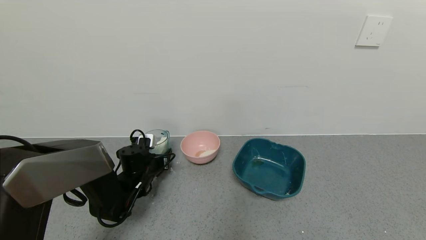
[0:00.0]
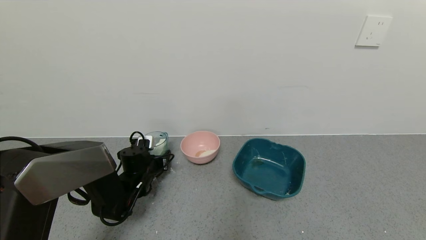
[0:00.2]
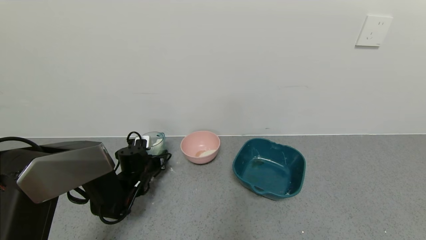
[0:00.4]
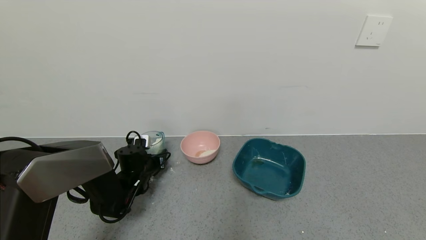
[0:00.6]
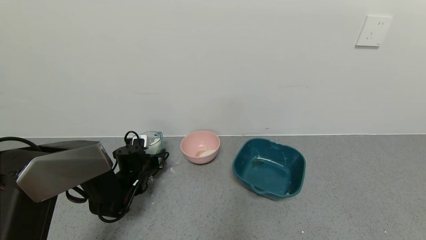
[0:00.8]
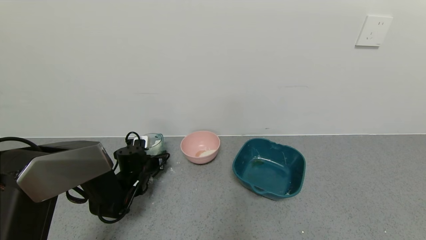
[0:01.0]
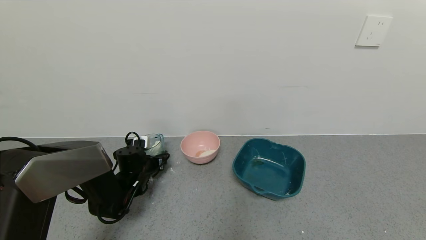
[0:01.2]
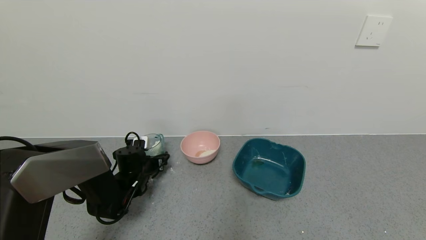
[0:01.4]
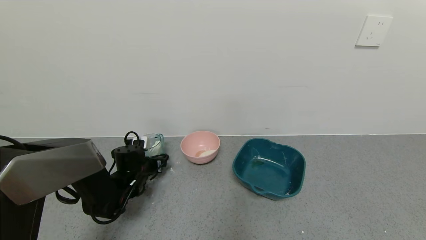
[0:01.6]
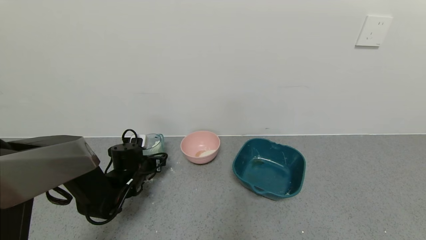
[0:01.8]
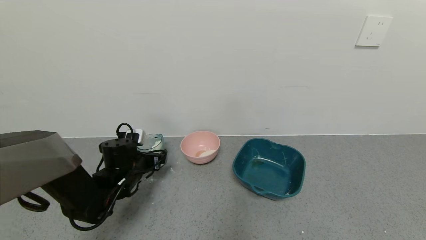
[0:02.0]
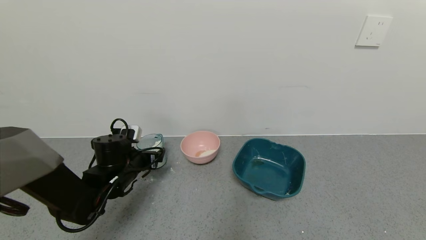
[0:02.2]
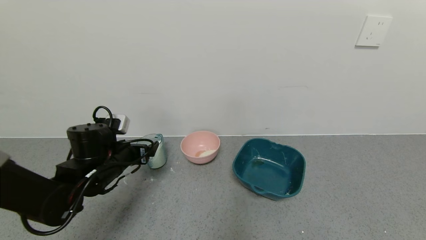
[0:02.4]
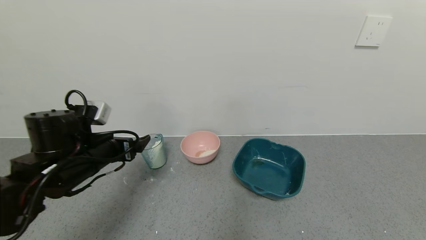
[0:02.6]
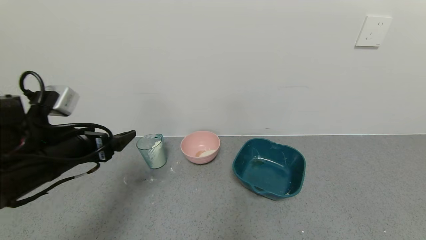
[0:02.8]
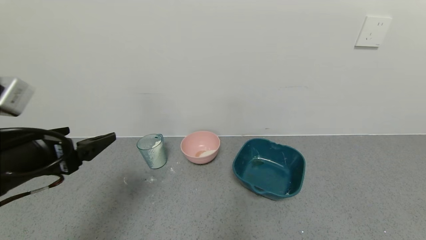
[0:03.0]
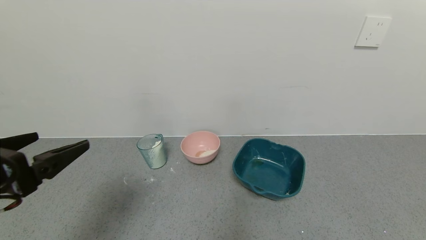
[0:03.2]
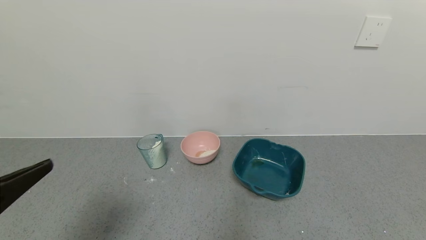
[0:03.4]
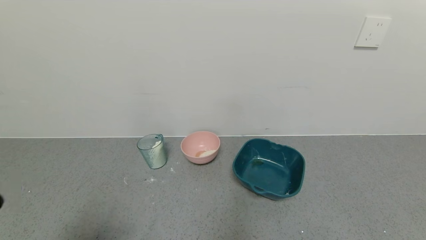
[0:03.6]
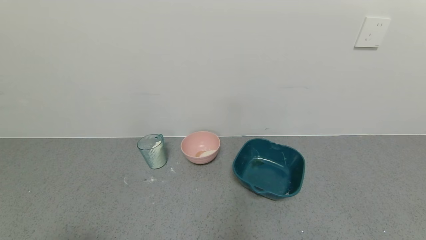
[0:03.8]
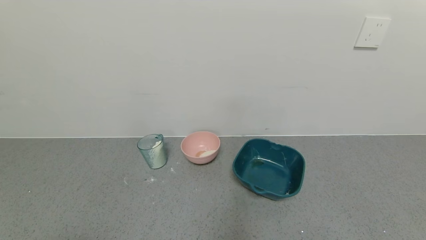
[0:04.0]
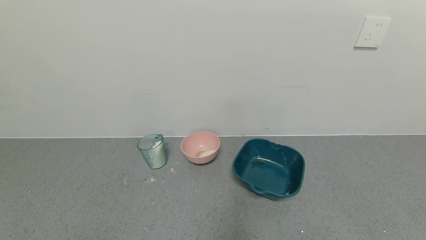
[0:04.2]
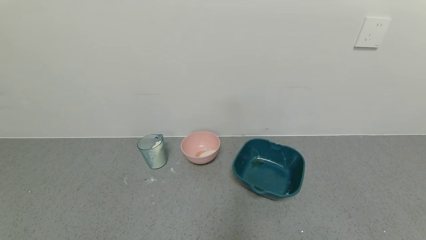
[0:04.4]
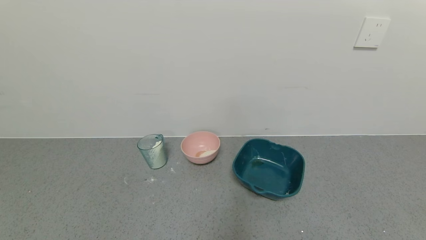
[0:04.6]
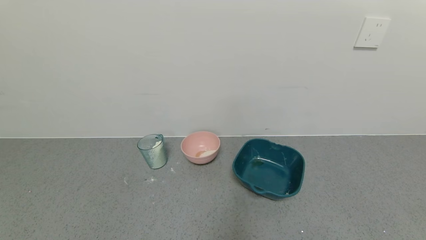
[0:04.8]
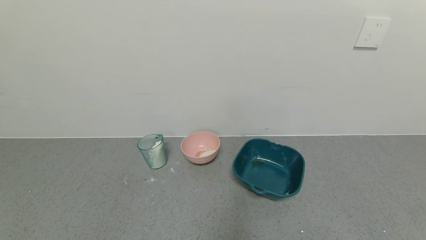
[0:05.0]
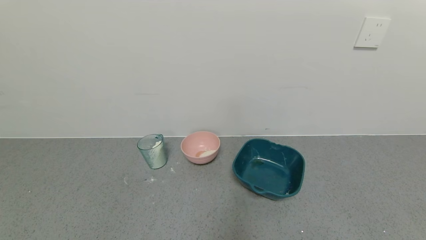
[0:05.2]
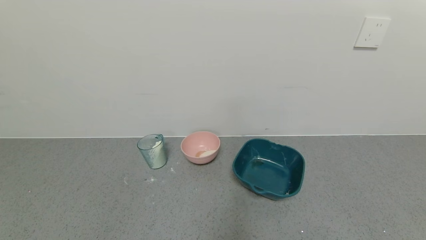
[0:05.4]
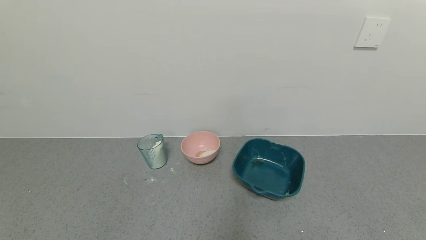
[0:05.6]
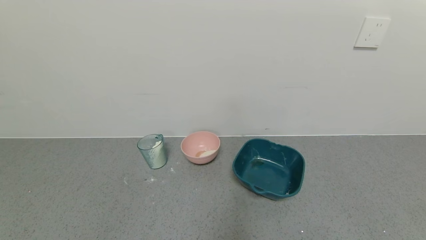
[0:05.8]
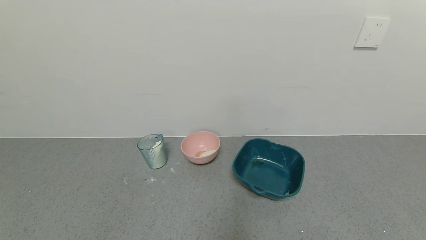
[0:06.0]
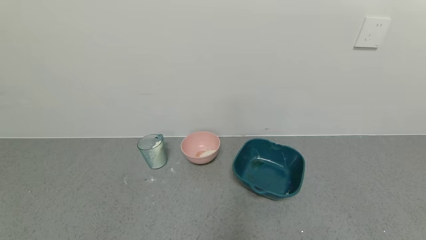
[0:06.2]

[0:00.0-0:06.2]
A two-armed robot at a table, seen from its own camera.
Task of the whole recording: use a gripper to pick up the cup and pour the powder into a bowl or tray.
Step, 0:00.0 to 0:02.2: Place the glass cup down with the left gripper.
0:00.0 to 0:01.6: The left gripper opens.
0:01.6 to 0:03.2: The left gripper goes about 35 cm backward and upward.
0:03.2 to 0:04.6: The left gripper heads backward, covering about 20 cm.

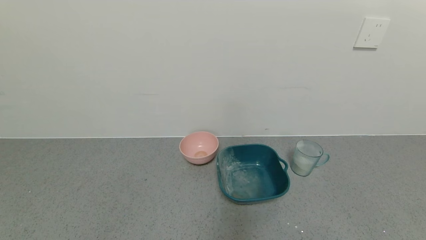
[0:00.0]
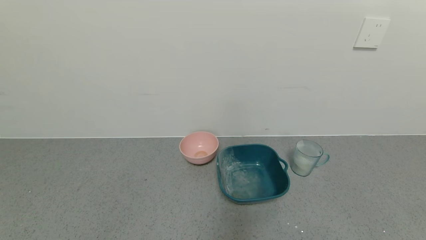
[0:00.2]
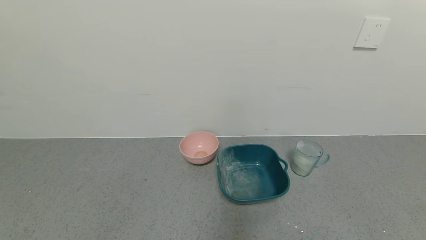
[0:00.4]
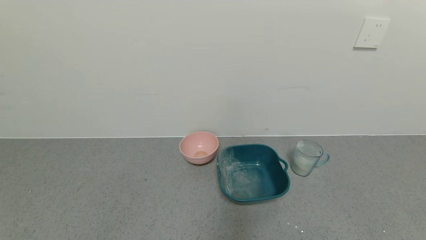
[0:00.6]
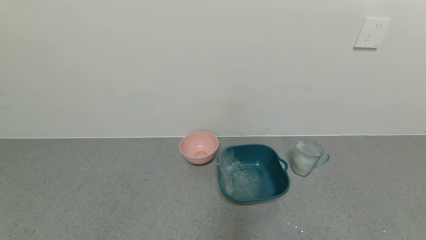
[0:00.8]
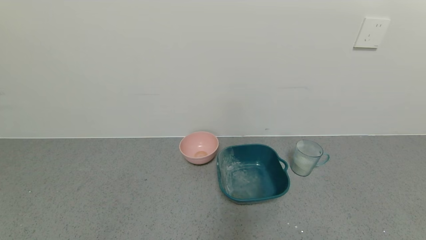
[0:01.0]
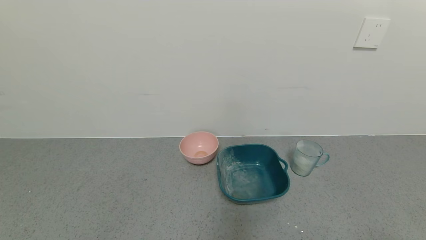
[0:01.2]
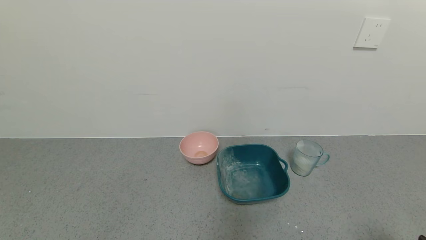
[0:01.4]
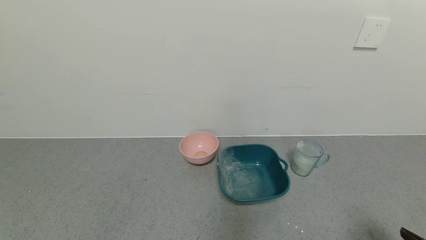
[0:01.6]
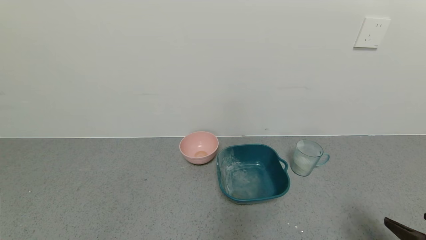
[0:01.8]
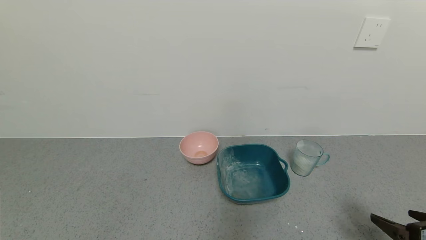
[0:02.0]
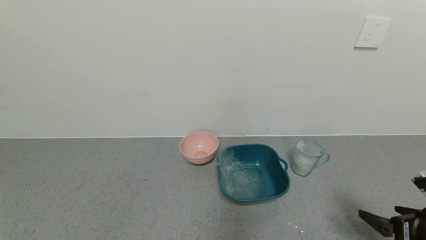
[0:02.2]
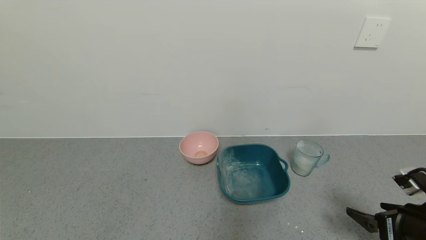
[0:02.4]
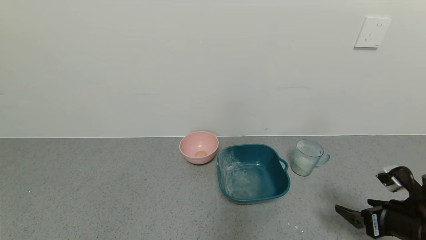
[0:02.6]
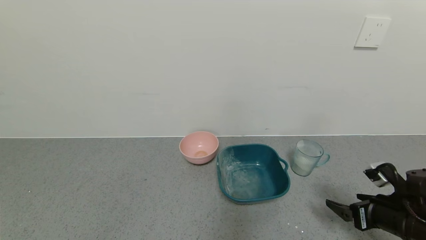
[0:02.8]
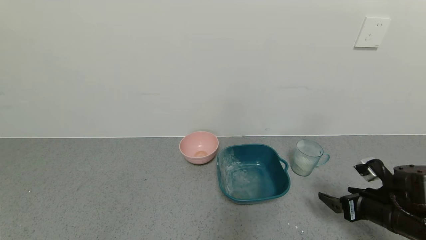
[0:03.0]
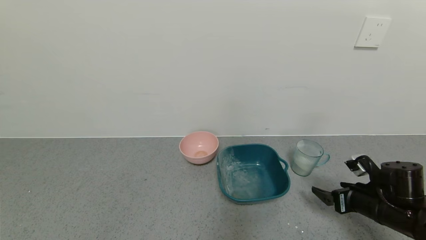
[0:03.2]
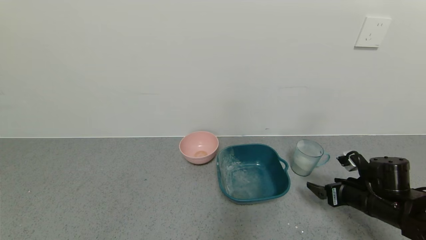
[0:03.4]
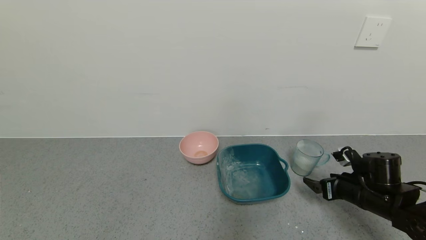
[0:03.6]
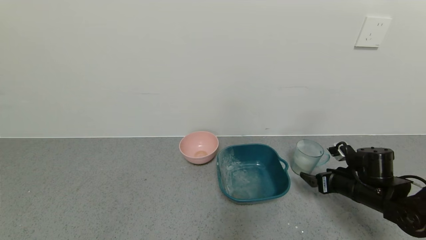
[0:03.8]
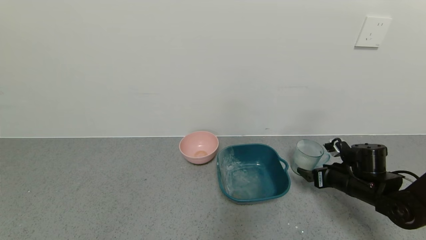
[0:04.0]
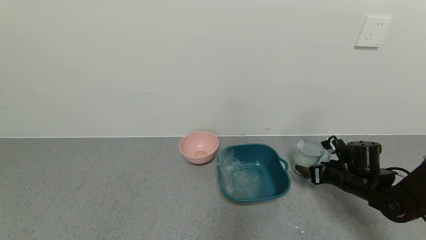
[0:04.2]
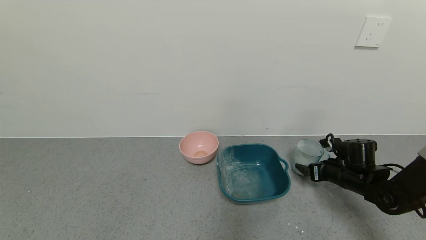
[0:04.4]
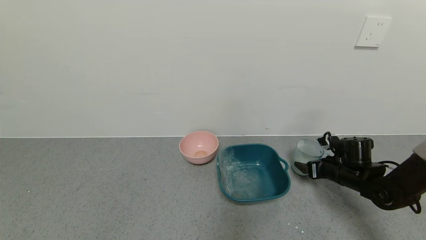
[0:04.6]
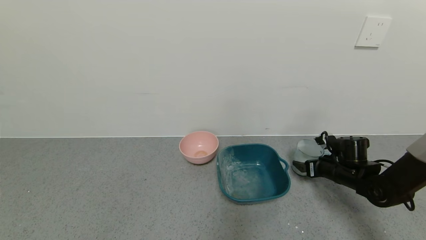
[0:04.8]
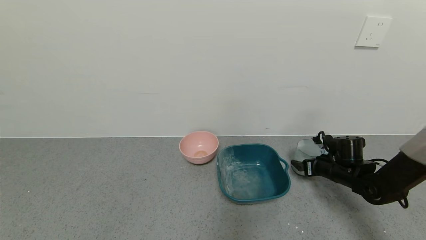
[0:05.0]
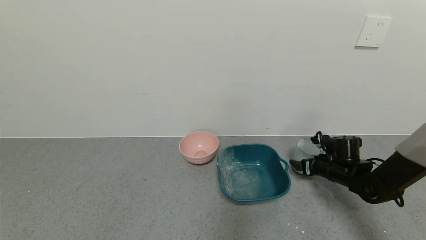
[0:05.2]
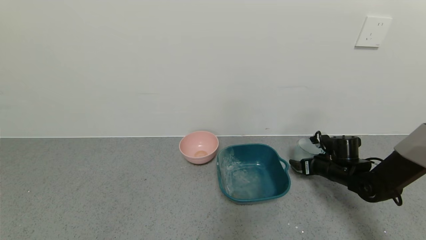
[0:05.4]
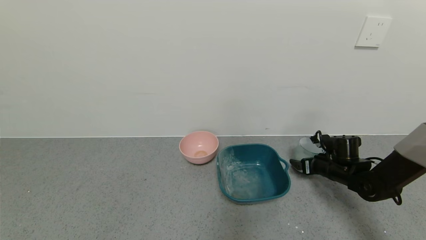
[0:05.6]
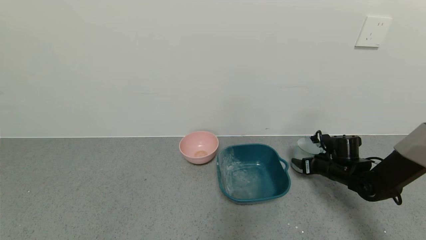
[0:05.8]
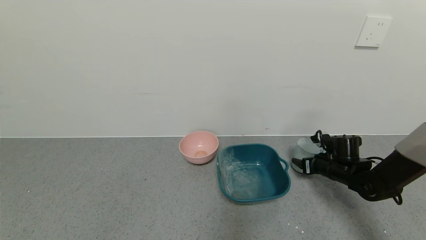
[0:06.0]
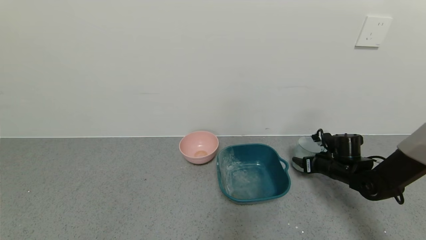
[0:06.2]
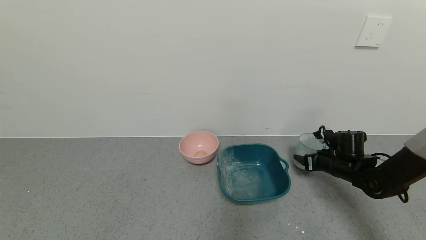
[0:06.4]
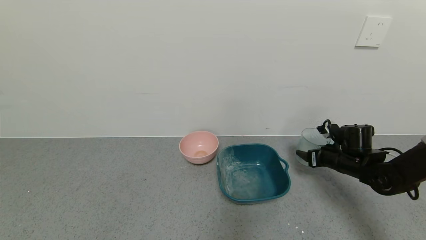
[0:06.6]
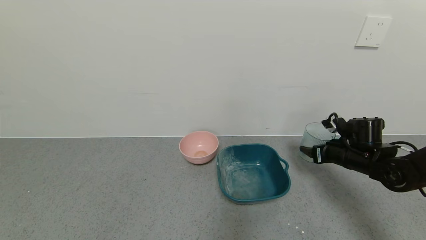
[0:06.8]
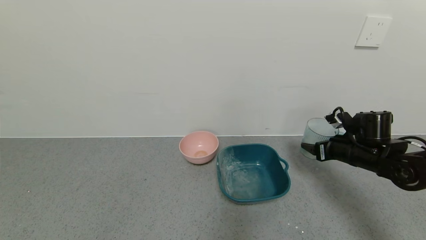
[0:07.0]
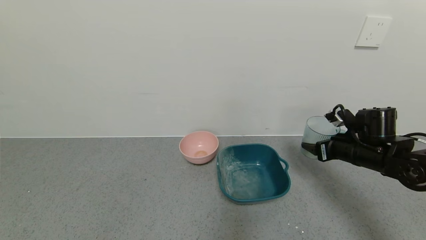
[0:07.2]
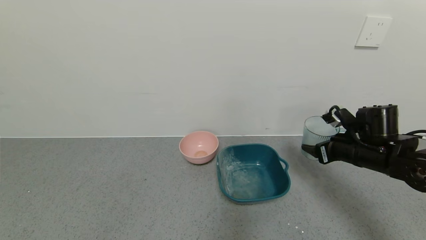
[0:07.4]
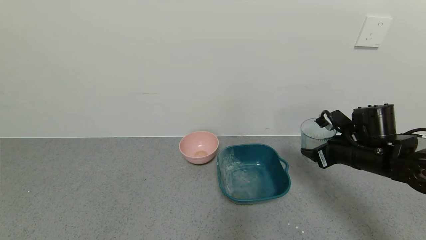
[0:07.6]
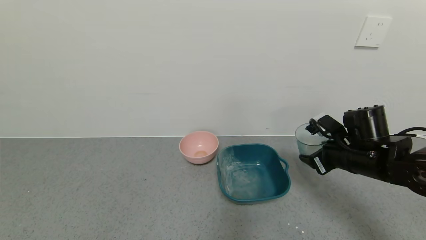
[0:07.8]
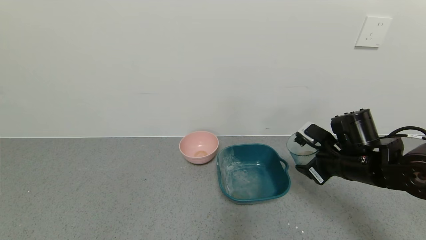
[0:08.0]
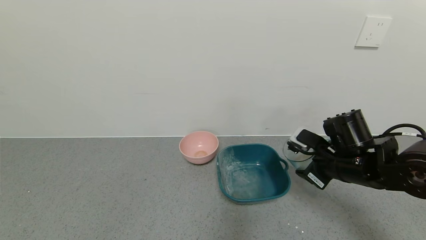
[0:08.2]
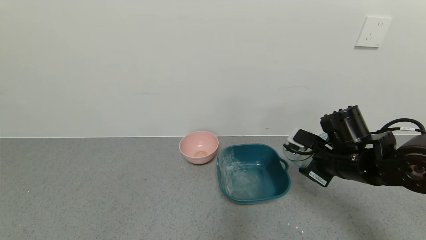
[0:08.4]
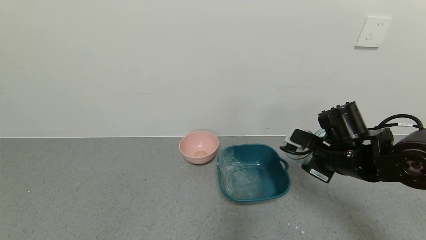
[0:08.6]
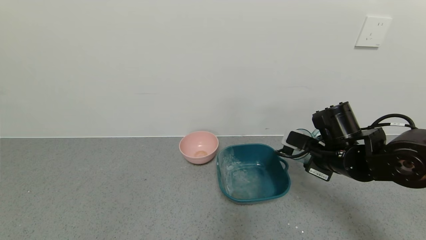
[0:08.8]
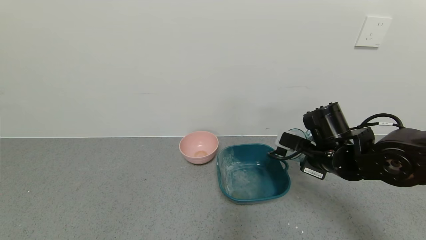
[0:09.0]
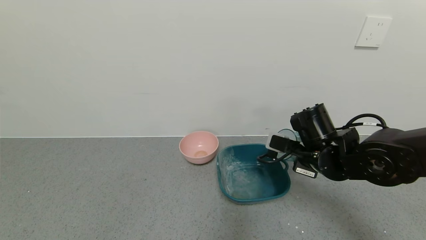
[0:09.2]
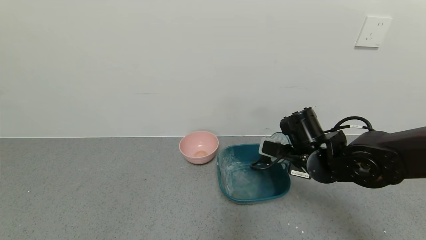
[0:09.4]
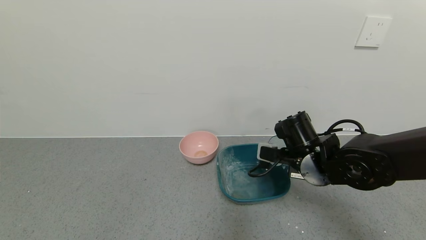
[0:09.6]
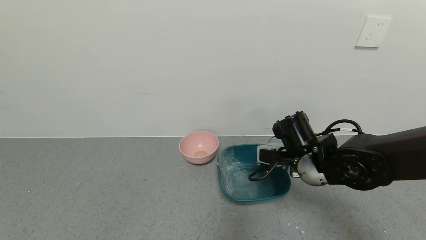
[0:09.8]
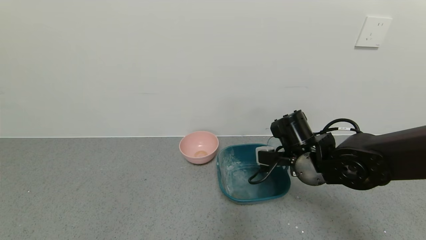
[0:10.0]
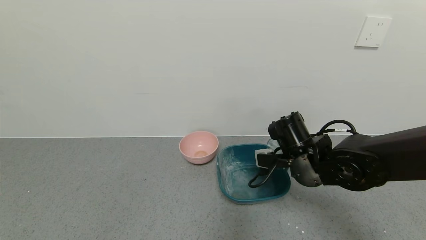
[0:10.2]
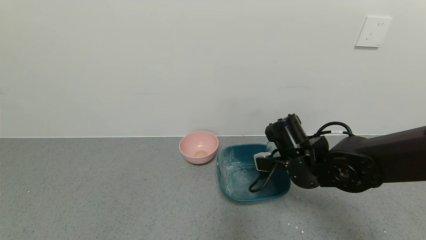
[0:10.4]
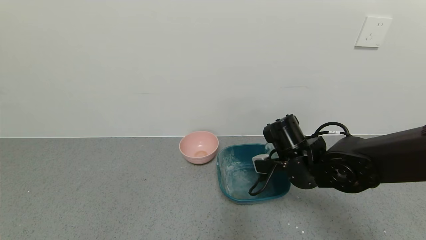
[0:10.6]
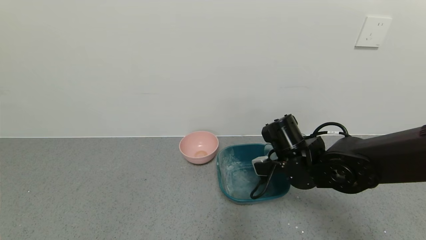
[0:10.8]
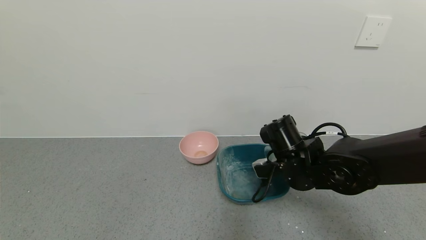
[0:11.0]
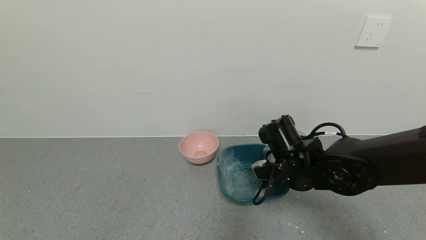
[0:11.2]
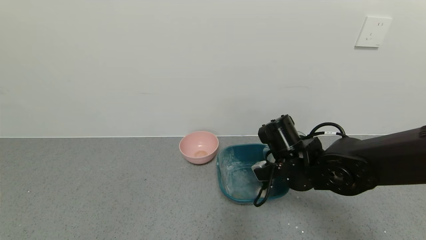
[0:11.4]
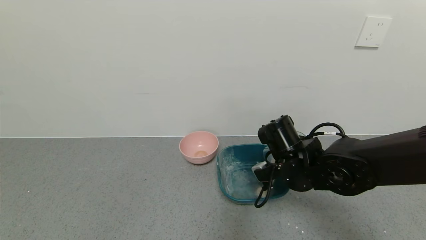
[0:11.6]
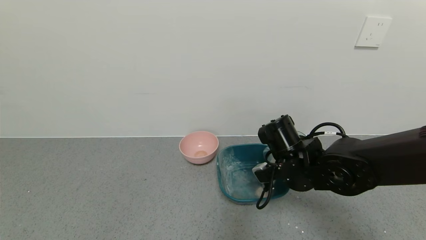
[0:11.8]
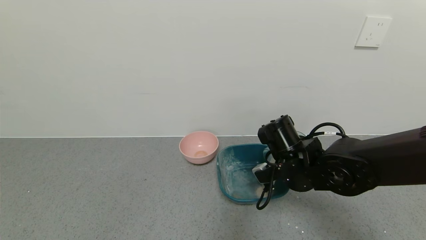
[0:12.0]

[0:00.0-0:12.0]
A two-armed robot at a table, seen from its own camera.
Task of the whole recording: use a gripper to pick up the cup and pour the powder into a bowl or tray.
Step, 0:00.0 to 0:05.8: Grasp the glass of powder with the right gripper.
0:00.0 to 0:01.6: The right gripper shifts about 10 cm forward and upward.
0:01.6 to 0:03.0: The right gripper heads forward and downward, covering some 15 cm.
0:03.0 to 0:04.4: The right gripper travels forward by some 10 cm.
0:04.4 to 0:06.0: The right gripper closes.
0:06.0 to 0:07.6: The right gripper moves upward and backward, approximately 15 cm.
0:07.6 to 0:09.0: The right gripper shifts about 5 cm to the left.
0:09.0 to 0:10.4: The right gripper shifts about 5 cm to the left.
0:10.4 to 0:12.0: There are only small adjustments of the grippers.
